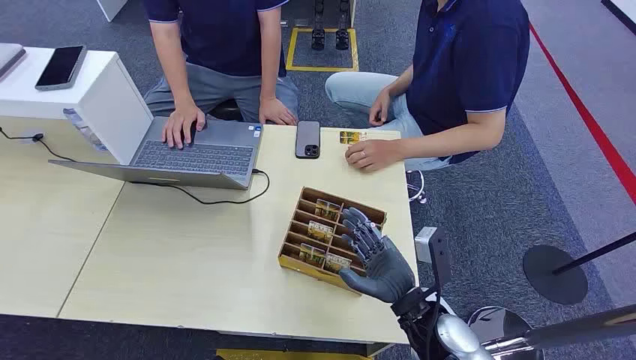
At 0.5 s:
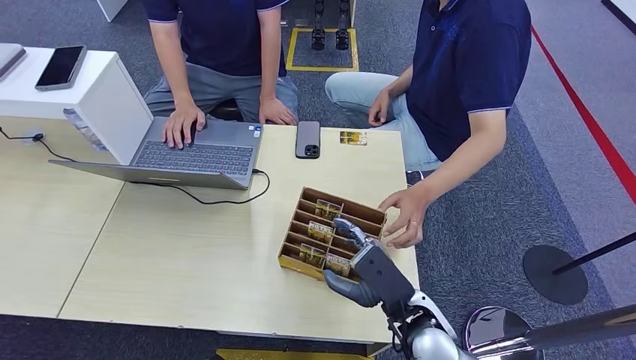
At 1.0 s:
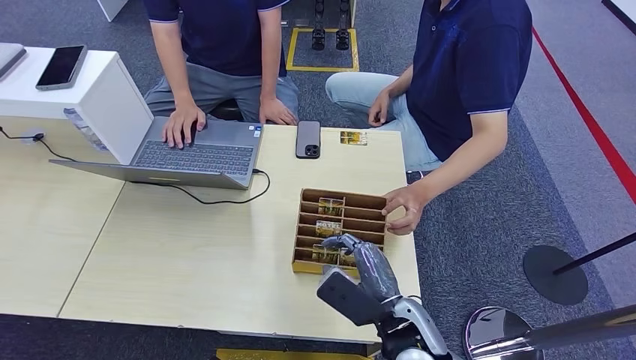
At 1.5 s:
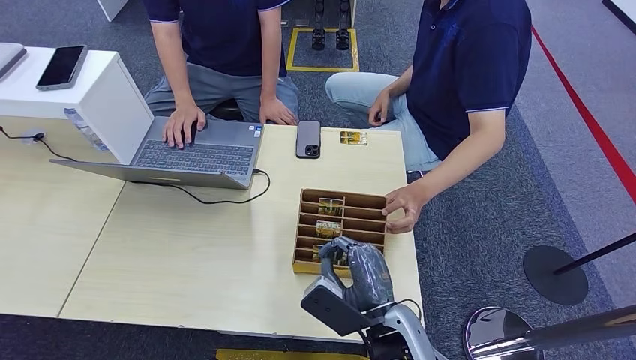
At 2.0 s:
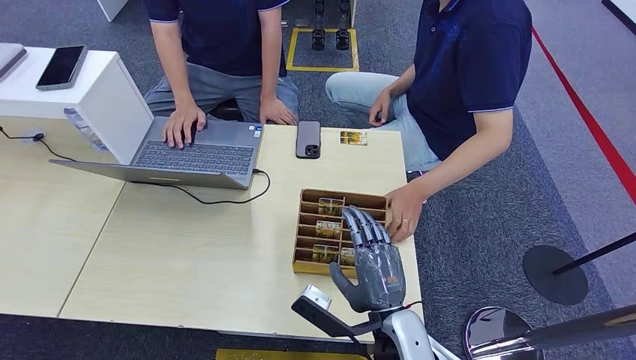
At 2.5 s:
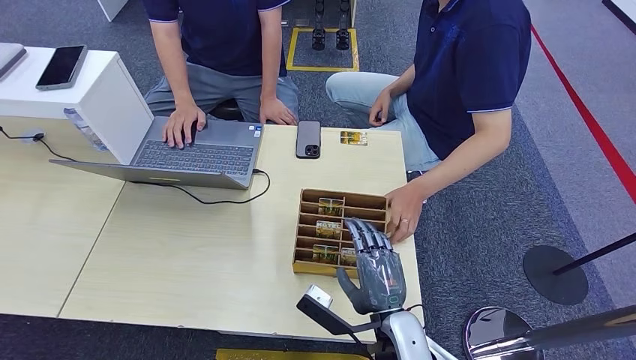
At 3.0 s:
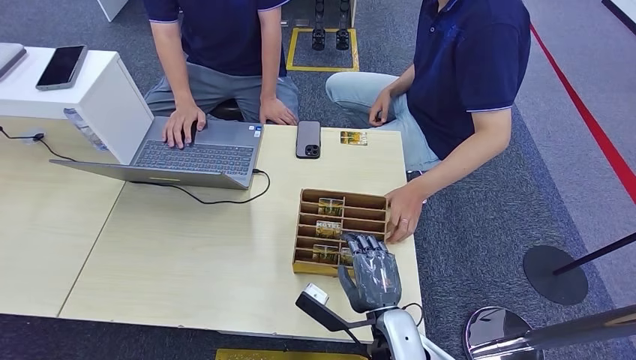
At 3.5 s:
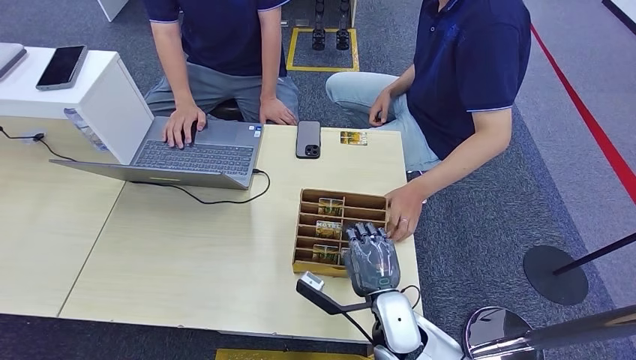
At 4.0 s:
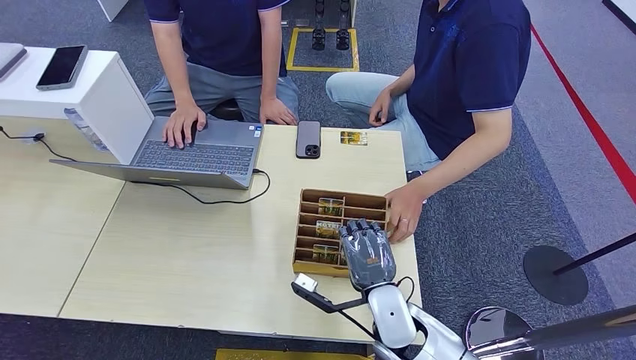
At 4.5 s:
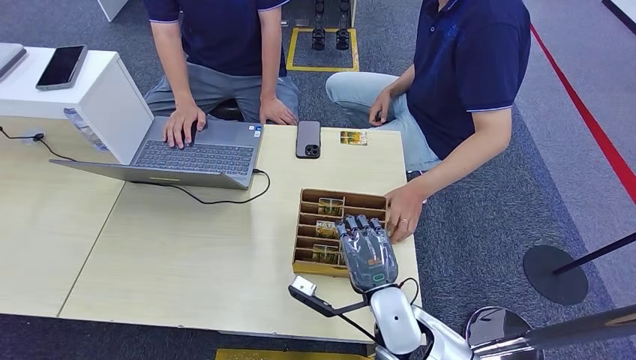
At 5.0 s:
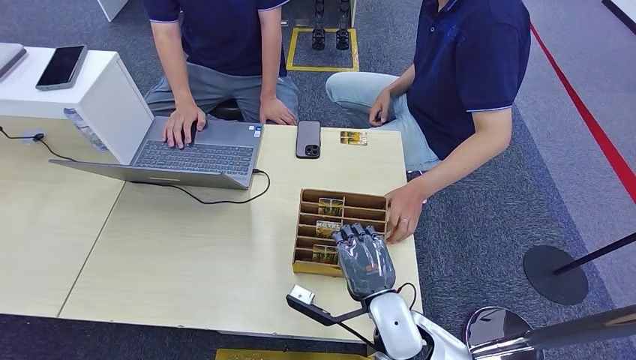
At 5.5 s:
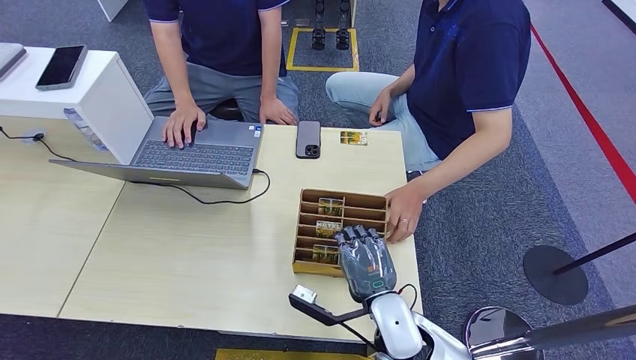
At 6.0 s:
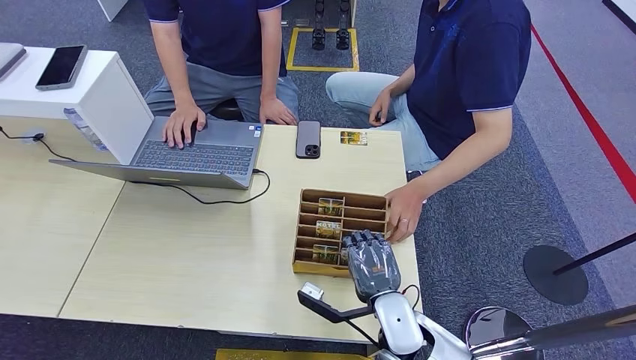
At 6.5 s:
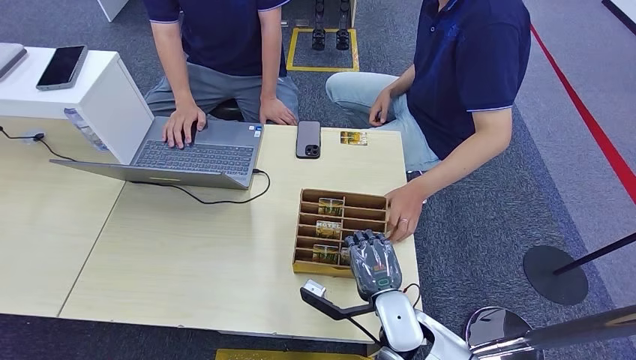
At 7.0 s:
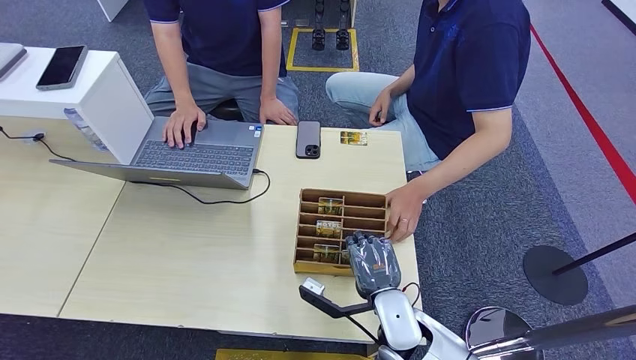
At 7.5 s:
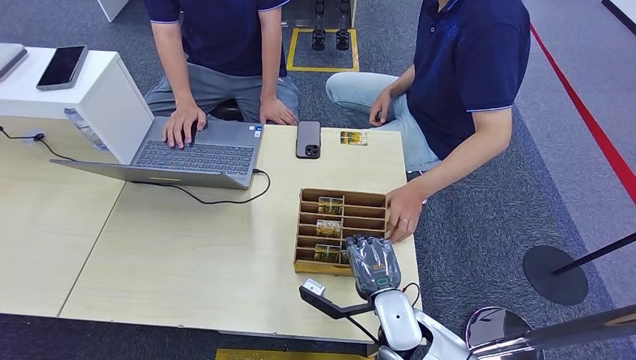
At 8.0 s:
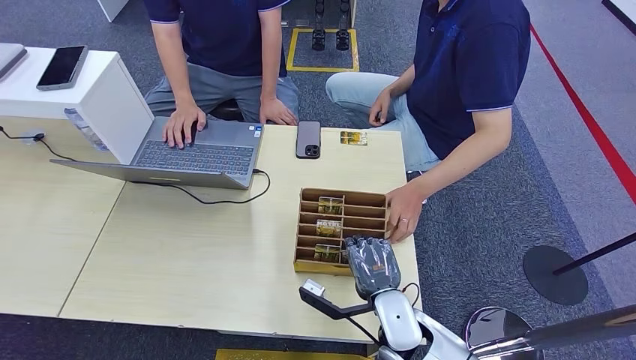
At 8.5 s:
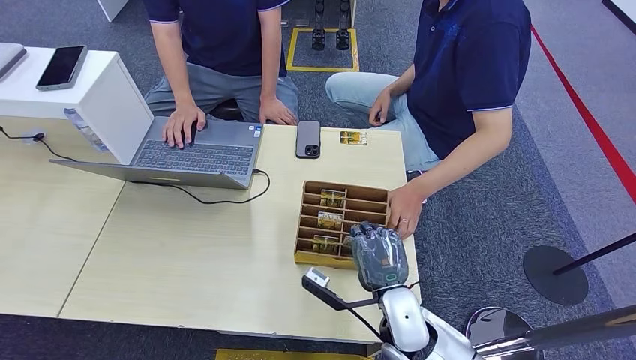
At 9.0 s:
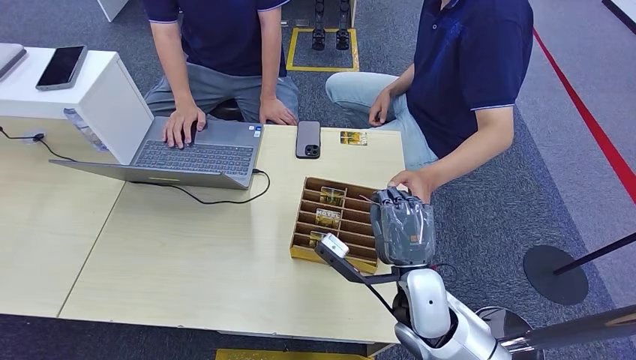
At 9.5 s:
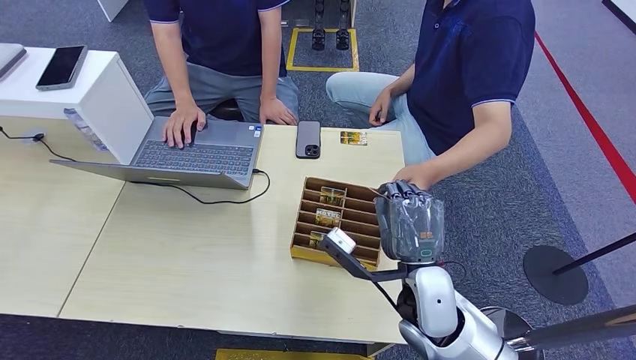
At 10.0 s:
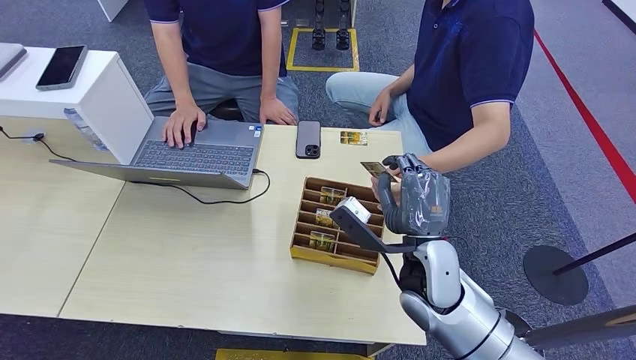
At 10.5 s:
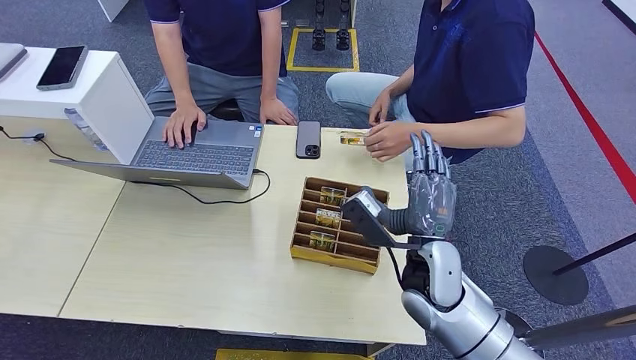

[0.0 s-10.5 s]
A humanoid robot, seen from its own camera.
Step, 0.0 to 9.0 s: Pick up the key card from the card box.
Step, 9.5 to 10.5 s: Hand the key card to the target.
2.0 to 4.0 s: The right hand moves about 5 cm.
4.0 to 8.5 s: The hands stay close to where they were, moving slightly.
8.5 to 10.5 s: The right hand travels upward and forward by about 10 cm.
